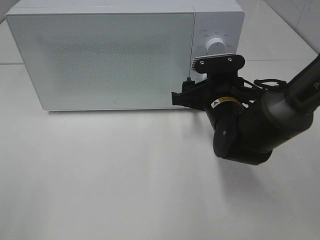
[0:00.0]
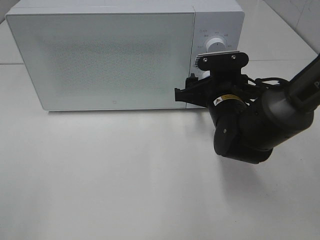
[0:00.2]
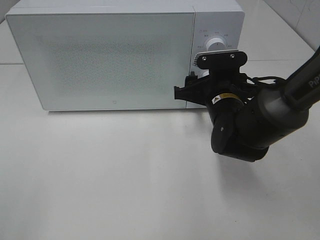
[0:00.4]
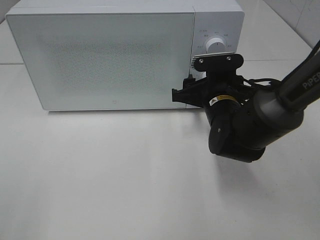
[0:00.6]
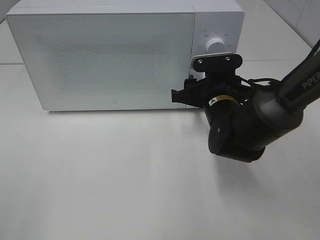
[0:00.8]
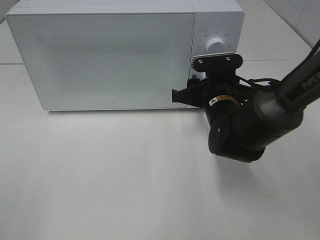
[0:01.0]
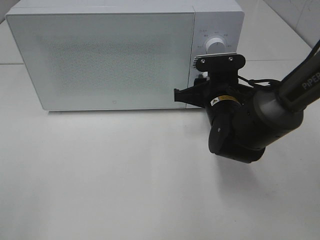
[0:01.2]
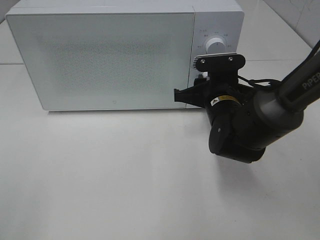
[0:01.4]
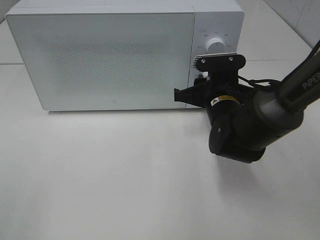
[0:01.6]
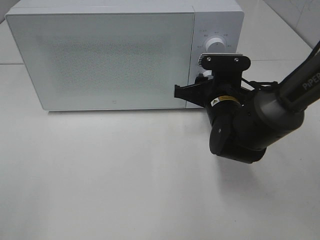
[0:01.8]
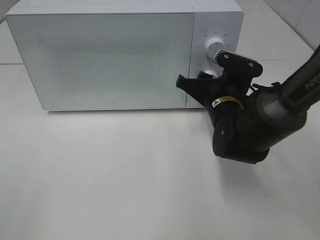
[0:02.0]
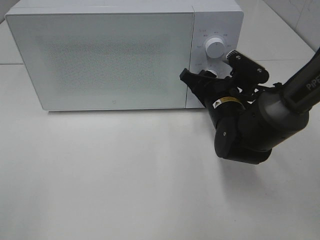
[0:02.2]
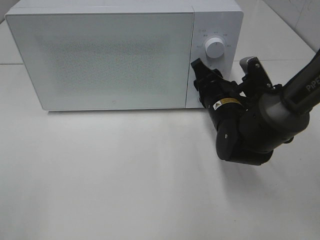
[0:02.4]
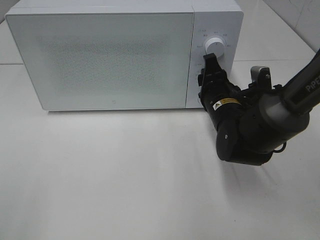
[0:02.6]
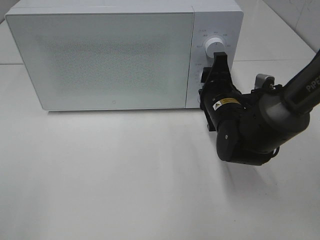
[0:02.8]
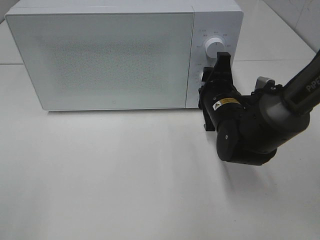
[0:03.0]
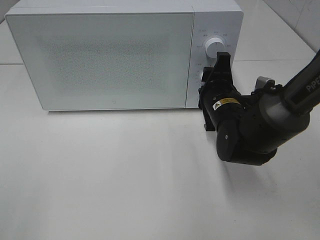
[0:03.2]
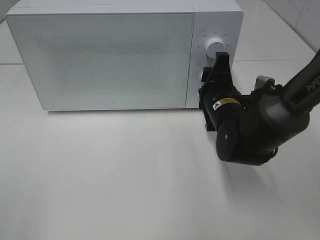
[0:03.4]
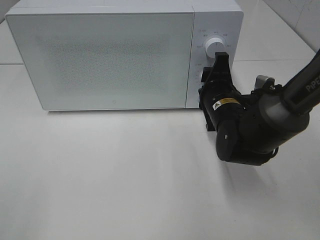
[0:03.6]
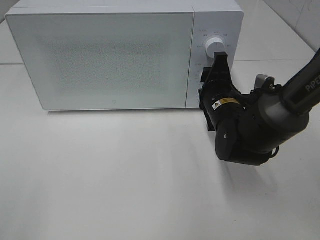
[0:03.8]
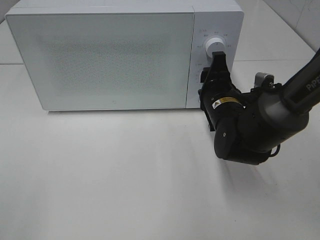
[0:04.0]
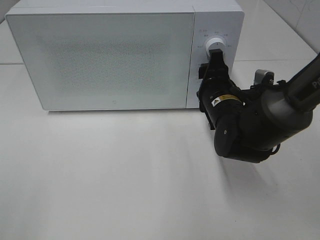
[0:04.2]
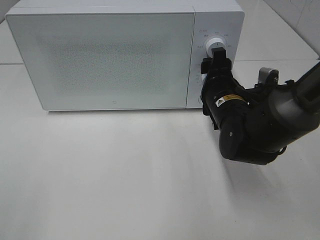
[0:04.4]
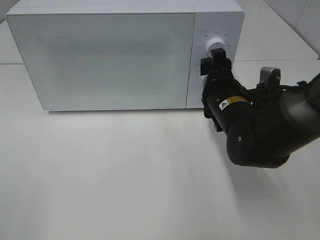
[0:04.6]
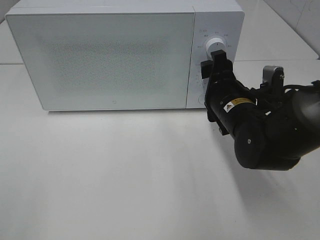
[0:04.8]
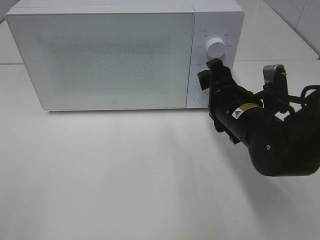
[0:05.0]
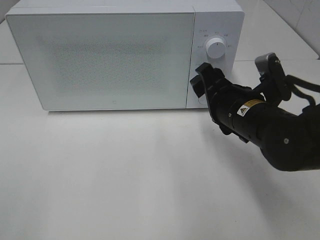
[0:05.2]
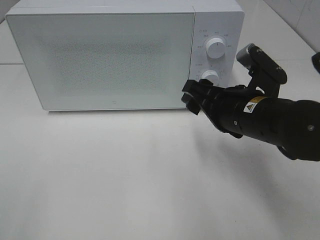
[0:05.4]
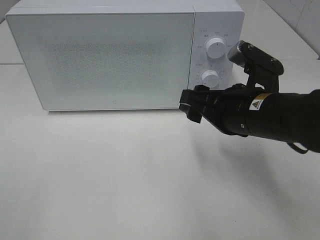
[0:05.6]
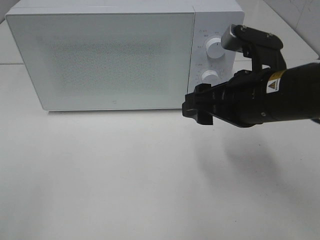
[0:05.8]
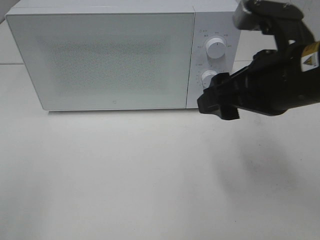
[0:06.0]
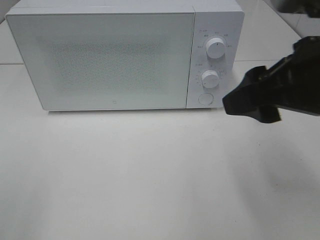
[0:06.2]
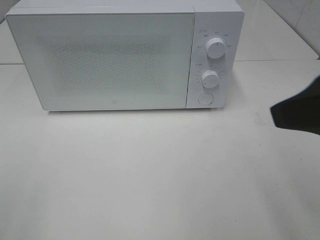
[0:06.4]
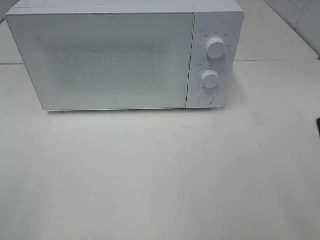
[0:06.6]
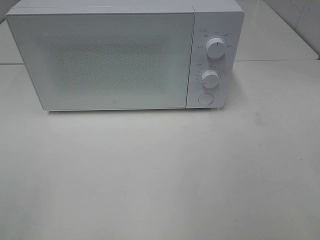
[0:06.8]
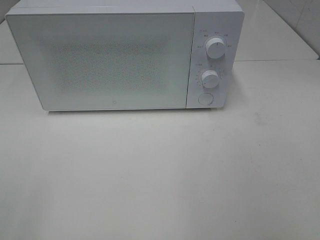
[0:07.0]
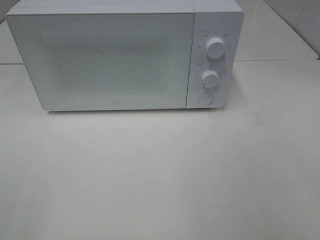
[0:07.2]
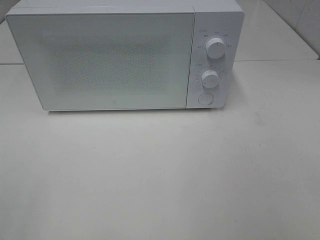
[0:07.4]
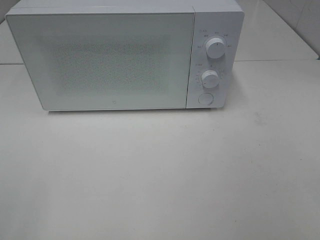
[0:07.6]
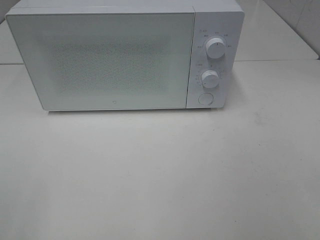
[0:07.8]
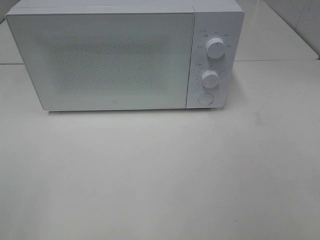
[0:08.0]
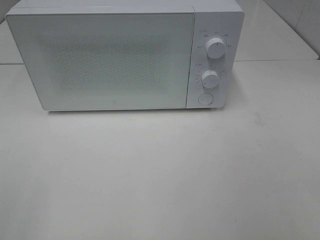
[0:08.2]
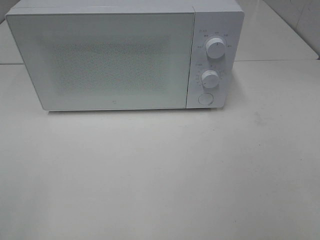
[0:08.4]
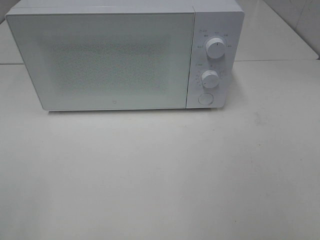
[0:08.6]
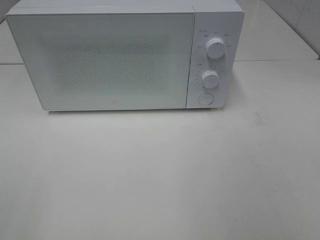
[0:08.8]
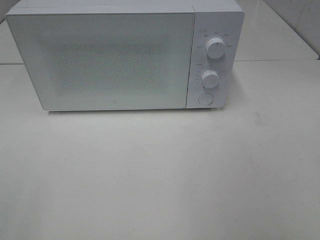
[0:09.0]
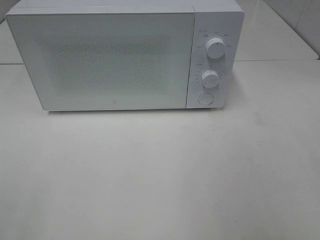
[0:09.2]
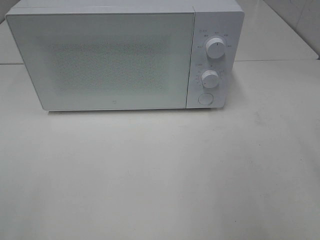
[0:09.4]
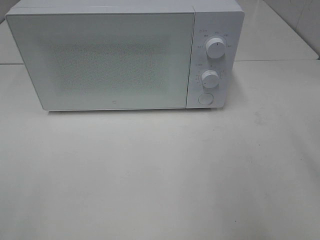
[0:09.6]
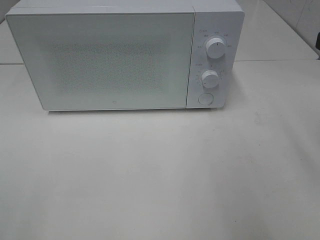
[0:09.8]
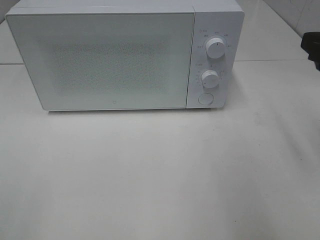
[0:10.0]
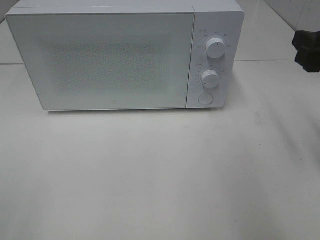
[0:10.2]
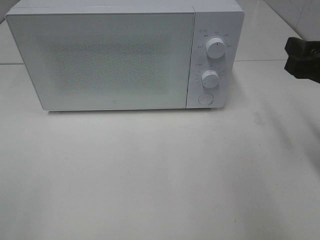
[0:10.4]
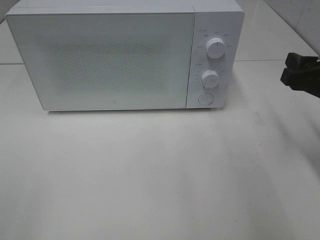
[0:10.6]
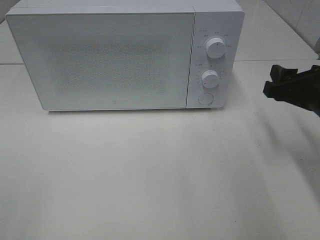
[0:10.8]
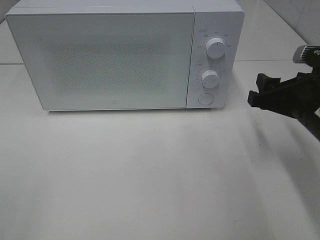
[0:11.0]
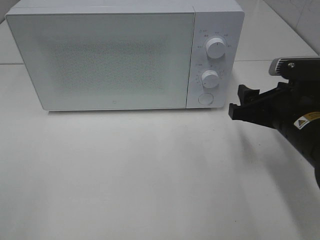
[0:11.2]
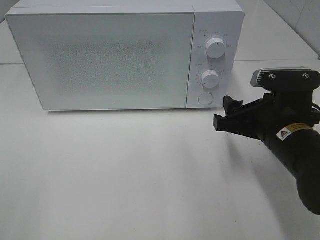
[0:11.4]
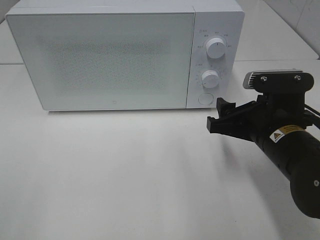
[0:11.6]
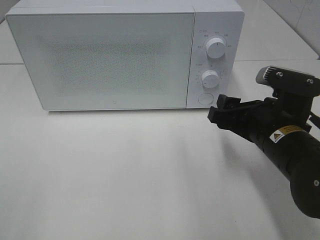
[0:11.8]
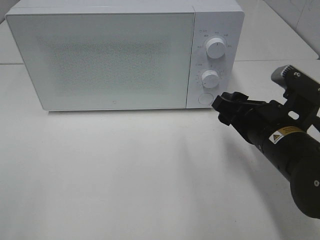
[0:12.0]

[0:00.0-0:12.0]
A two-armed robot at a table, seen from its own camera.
Task of the whole recording: Heat the burger.
Step, 0:00.0 to 0:04.4: Right hand: twist timer button.
0:00.0 to 0:01.6: The right gripper closes its fingers.
0:03.0 to 0:04.4: The grippers stay close to where they were, moving slightly.
0:04.4 to 0:06.0: The right gripper goes approximately 20 cm upward and backward.
0:06.0 to 0:07.6: The right gripper shifts some 25 cm backward and to the right.
0:09.0 to 0:10.4: The right gripper moves forward and downward, some 20 cm.
0:10.4 to 0:12.0: The right gripper travels to the left and downward by approximately 15 cm.

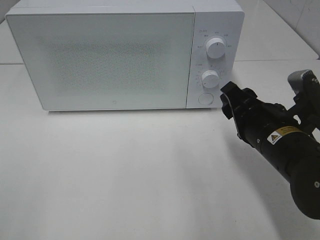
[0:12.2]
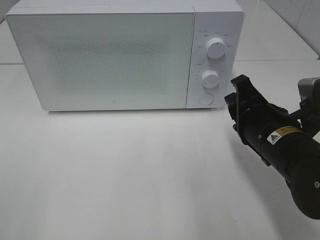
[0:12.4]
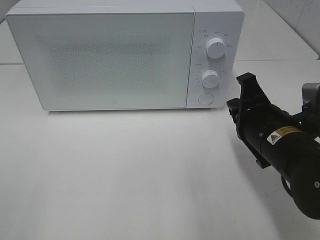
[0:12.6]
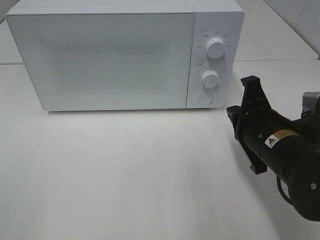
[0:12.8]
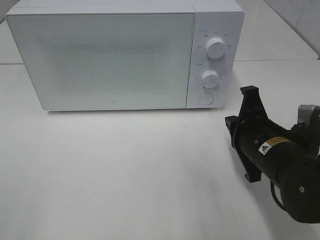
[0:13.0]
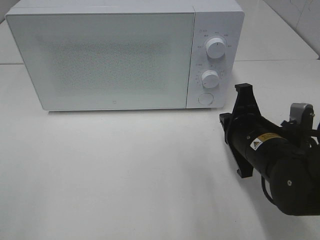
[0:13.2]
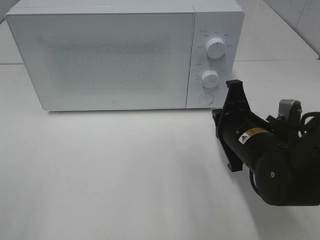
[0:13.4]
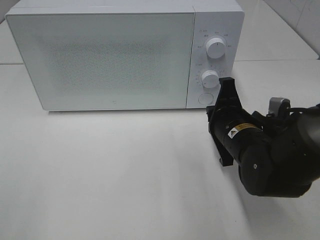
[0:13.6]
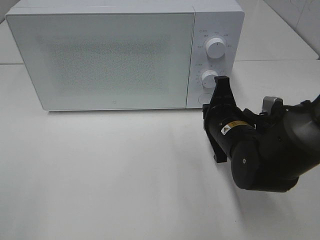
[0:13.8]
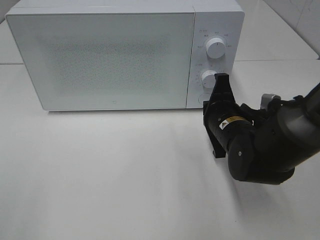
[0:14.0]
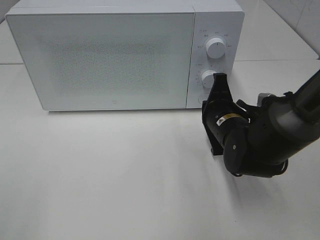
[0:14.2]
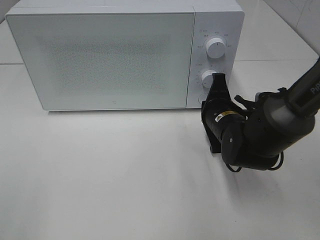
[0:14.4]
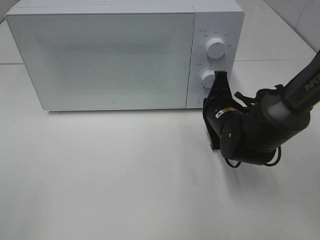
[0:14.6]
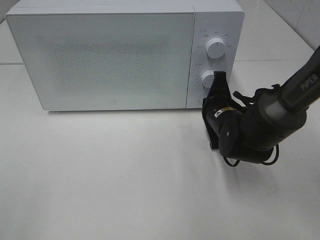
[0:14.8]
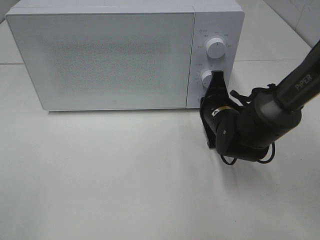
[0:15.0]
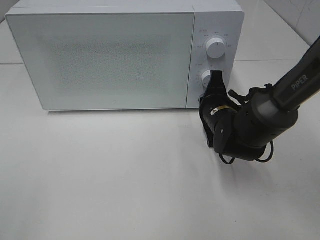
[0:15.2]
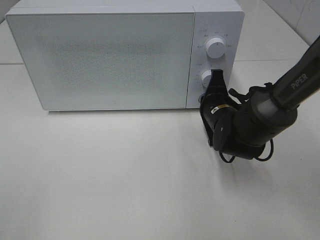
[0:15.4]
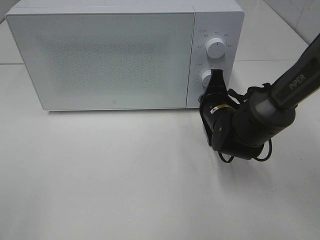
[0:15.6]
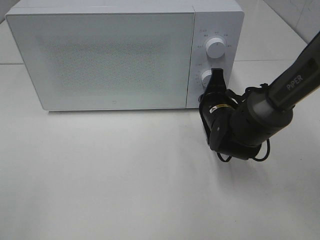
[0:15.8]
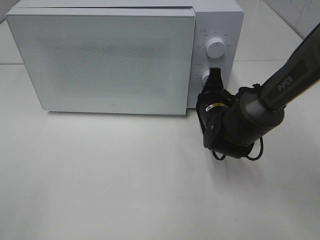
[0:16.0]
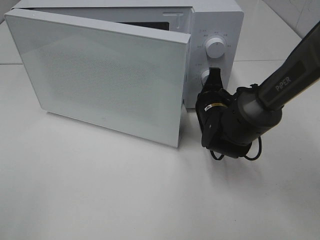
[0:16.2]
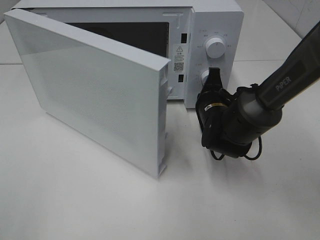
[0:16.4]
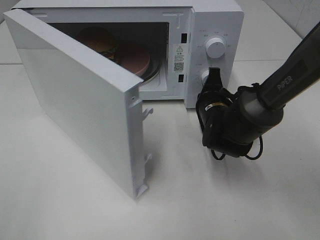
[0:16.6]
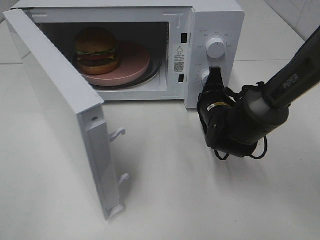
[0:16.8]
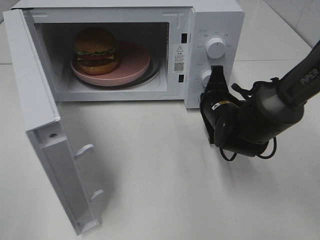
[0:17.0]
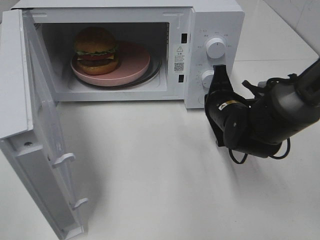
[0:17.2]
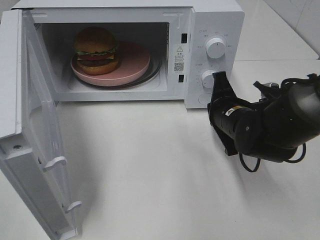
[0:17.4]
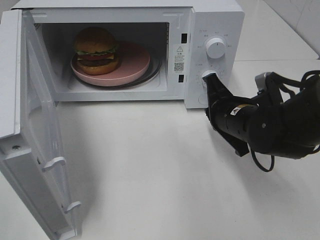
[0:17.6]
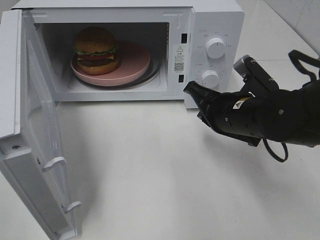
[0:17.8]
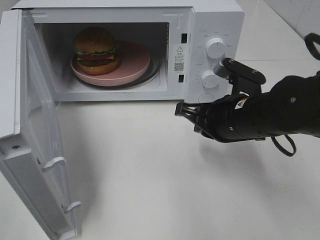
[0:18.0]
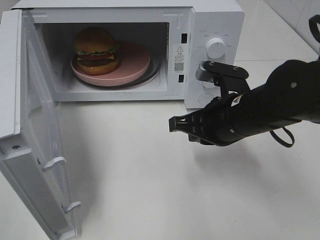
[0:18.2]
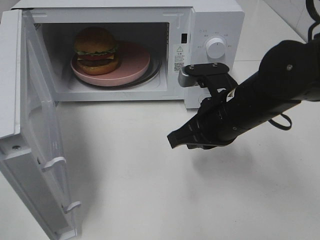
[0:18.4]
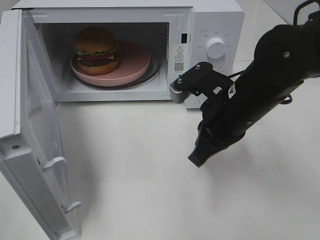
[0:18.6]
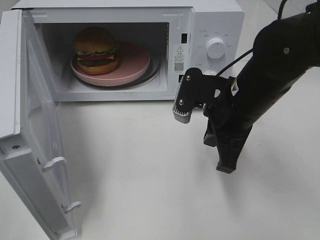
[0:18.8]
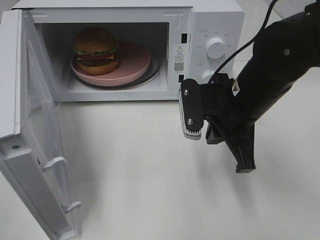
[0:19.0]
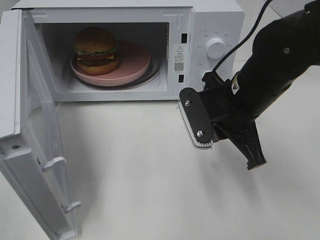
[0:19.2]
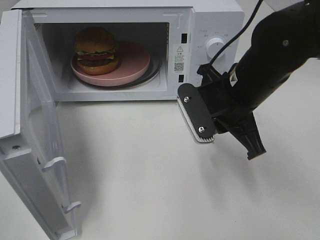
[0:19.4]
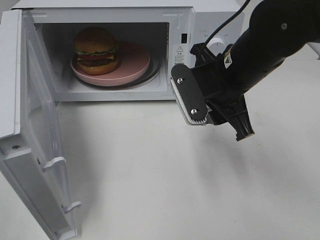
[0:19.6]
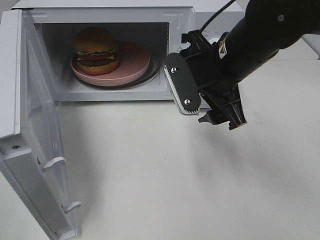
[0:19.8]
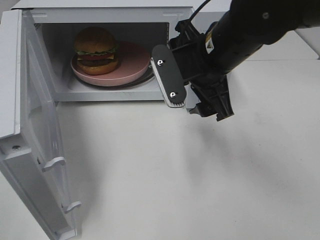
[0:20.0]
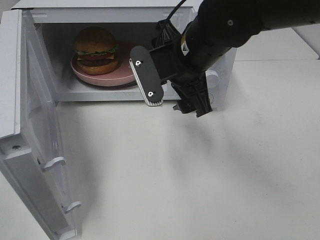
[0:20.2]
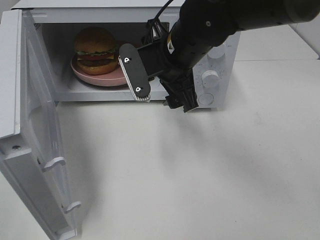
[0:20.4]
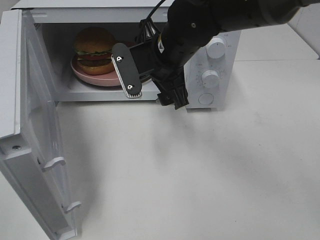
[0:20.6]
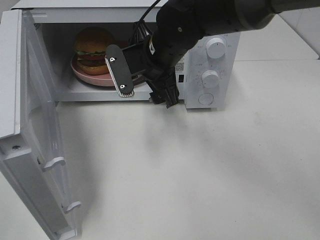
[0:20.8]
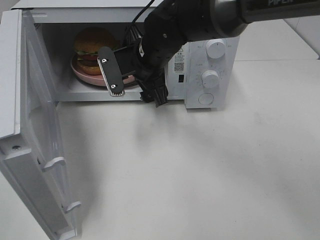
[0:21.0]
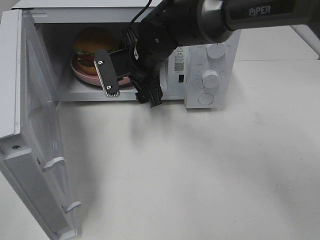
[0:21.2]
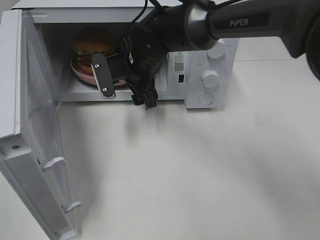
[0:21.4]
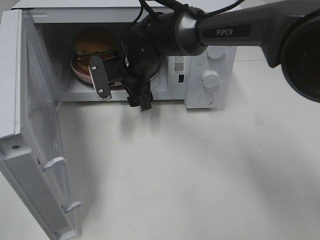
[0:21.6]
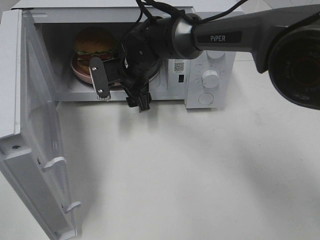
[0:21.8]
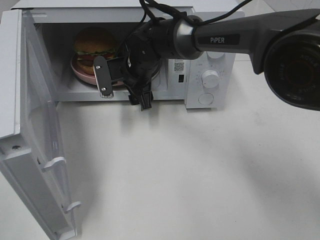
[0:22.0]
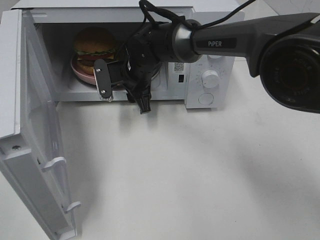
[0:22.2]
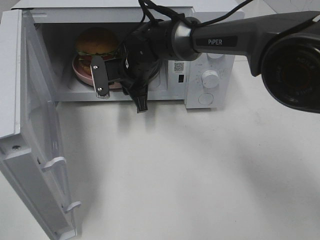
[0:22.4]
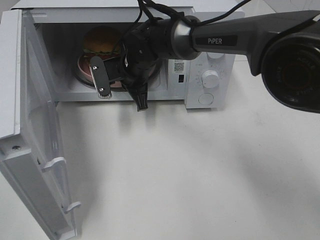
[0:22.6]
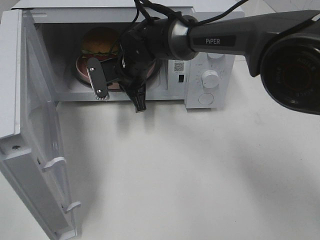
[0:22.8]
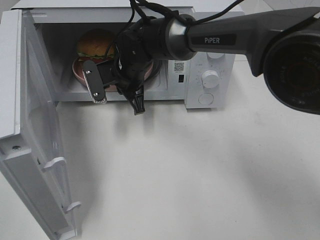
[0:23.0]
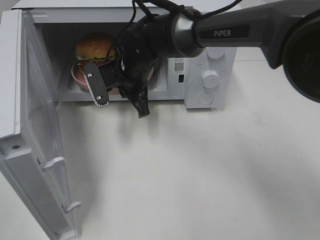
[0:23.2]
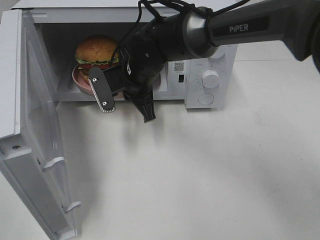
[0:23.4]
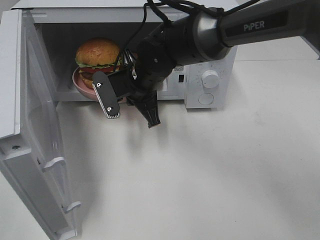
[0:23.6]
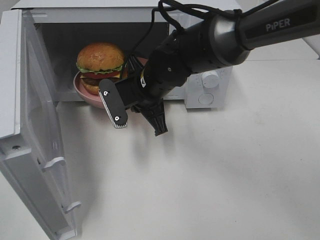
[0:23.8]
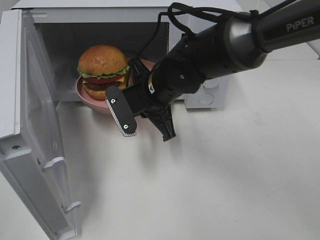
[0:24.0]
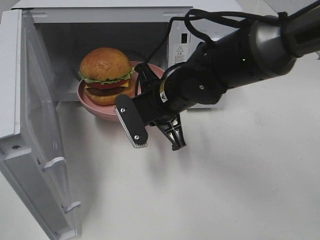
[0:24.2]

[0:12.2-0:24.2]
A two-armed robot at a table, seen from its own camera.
Task of the whole recording: Heat the burger.
Step, 0:12.2 to 0:17.0: Right hand: press the switch.
Step, 0:17.2 to 0:22.4: Right hand: grab the plate with the hamburger.
0:12.2 to 0:13.8: The right gripper moves forward, some 5 cm, and closes up.
0:13.8 to 0:15.2: The right gripper shifts approximately 5 cm forward.
0:16.6 to 0:18.2: The right gripper is displaced backward and upward by approximately 15 cm.
0:18.2 to 0:19.8: The right gripper shifts approximately 5 cm upward, and opens its fingers.
0:19.8 to 0:21.2: The right gripper shifts about 15 cm to the left, forward and downward.
0:21.2 to 0:22.6: The right gripper moves about 5 cm, and closes.
0:22.6 to 0:24.2: The right gripper travels backward and to the right by about 15 cm.
